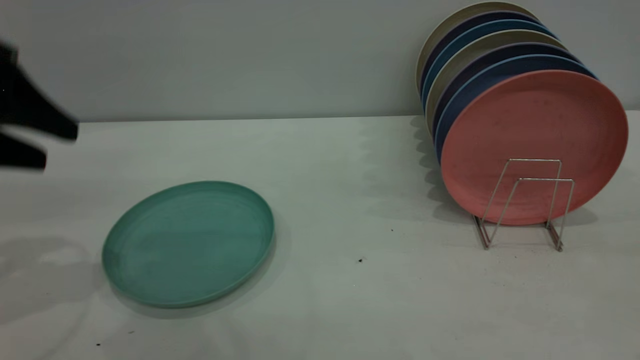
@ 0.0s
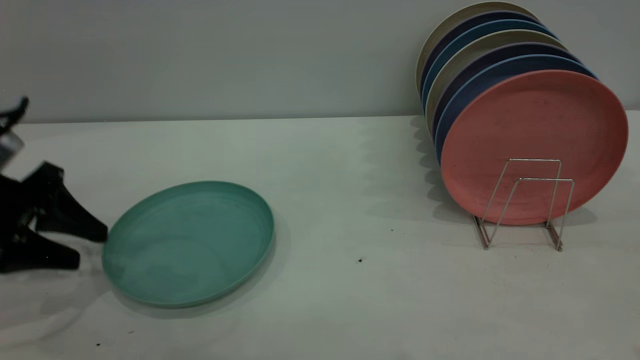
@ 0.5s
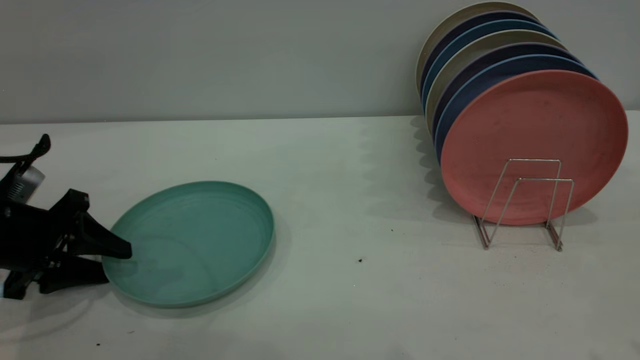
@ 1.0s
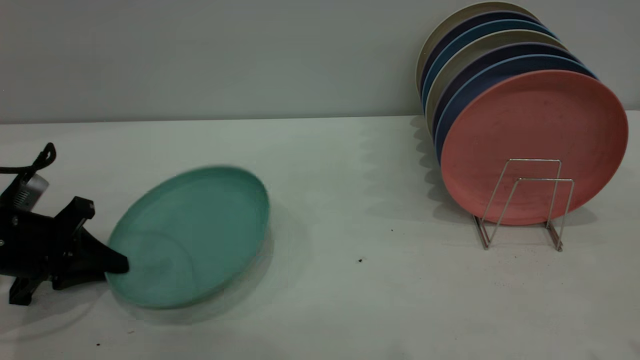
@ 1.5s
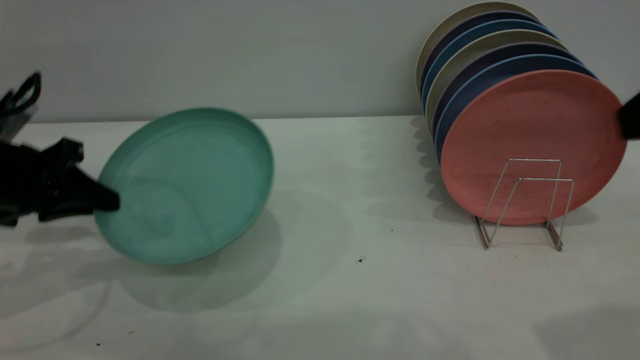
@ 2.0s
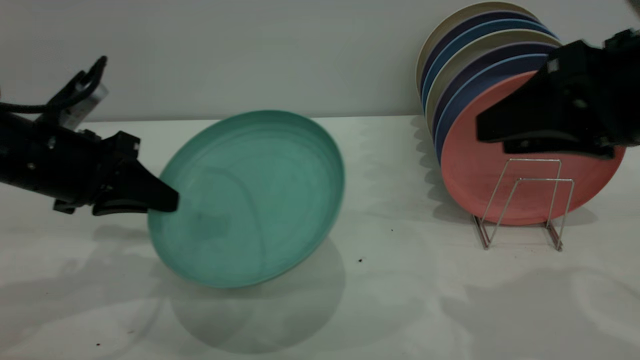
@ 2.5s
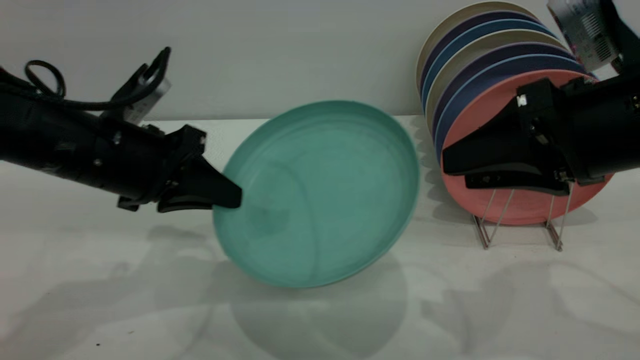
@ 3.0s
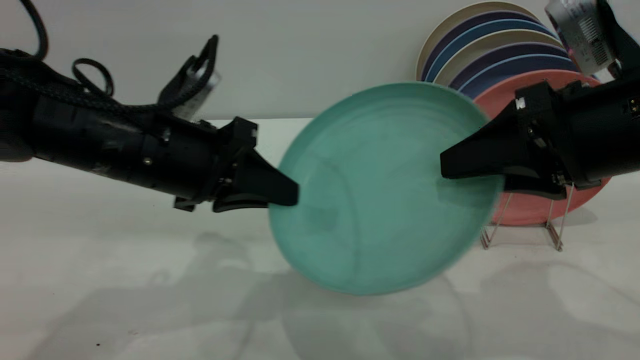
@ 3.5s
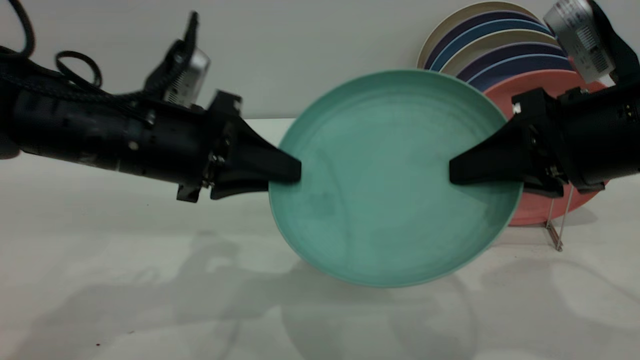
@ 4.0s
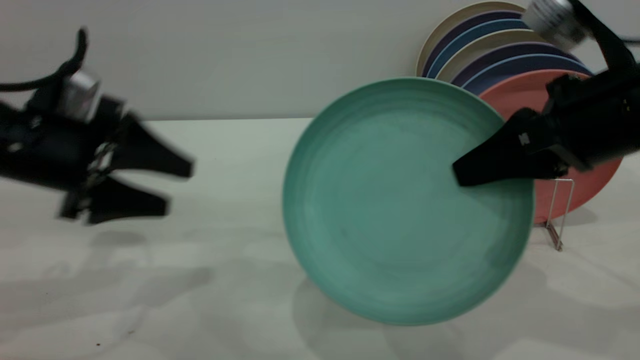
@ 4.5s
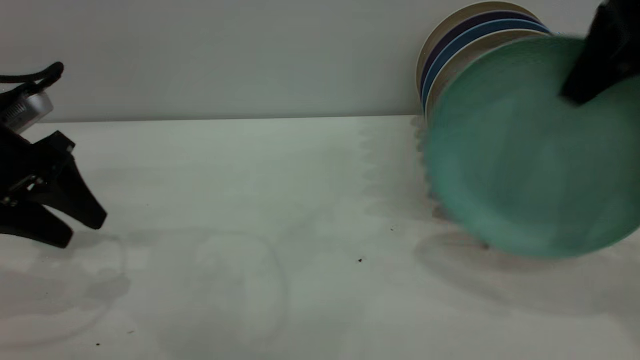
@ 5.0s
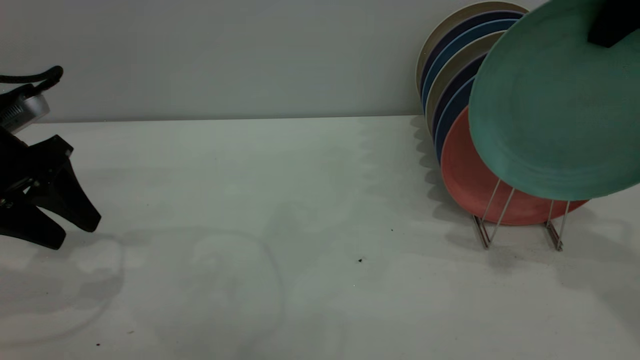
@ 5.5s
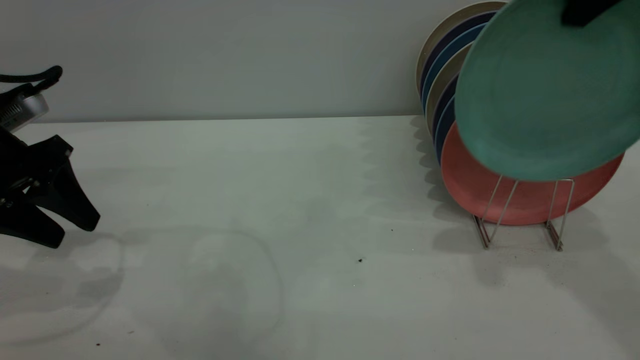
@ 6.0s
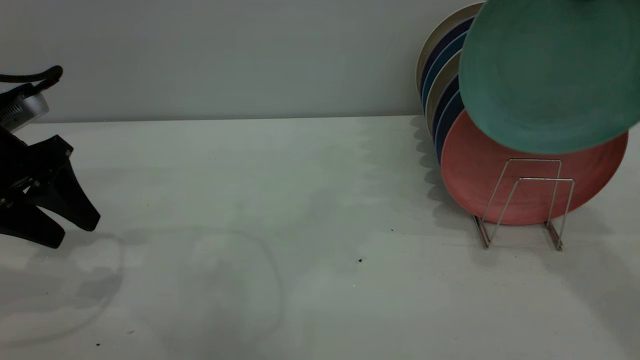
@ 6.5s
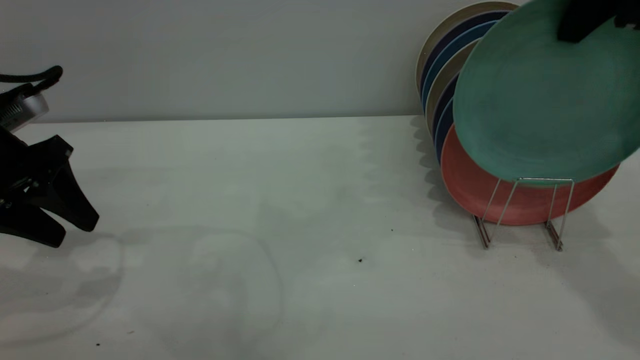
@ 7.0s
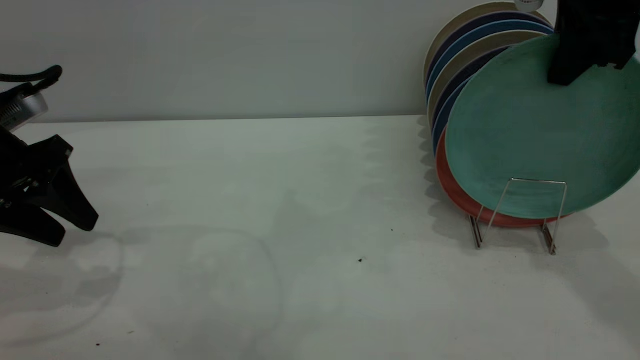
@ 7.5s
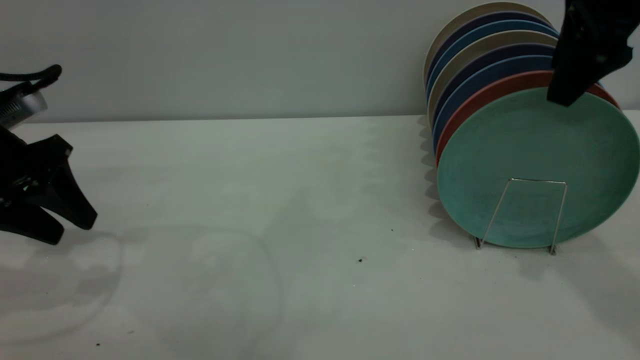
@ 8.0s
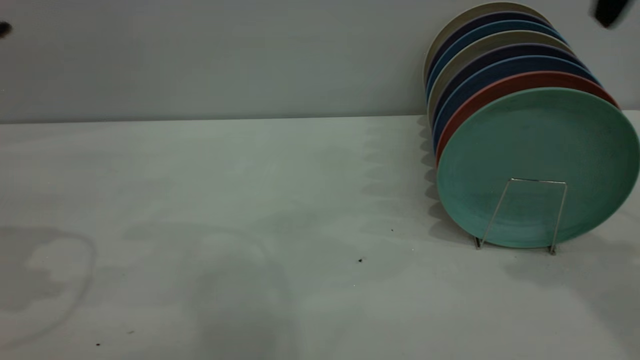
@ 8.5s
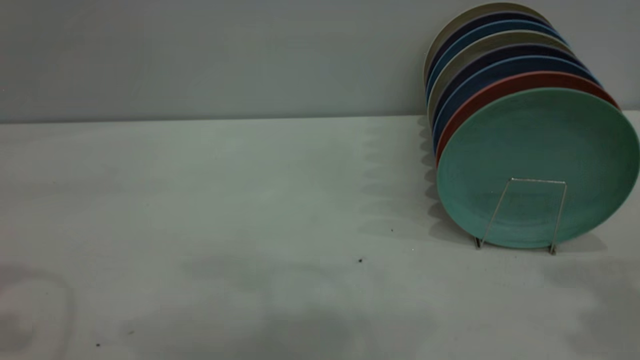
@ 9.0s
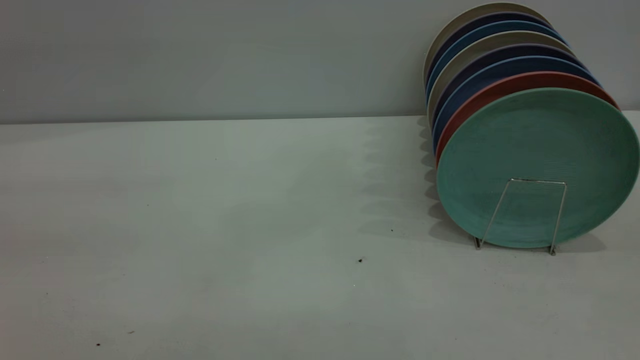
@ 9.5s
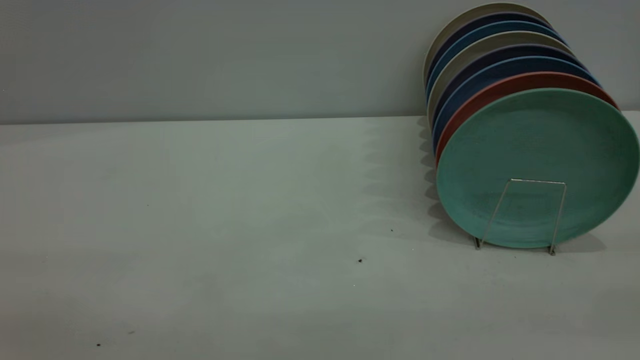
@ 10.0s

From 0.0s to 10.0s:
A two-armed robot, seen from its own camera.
Task of the whole recording: the left gripper grasp the green plate, the left gripper pass the green plate to the right gripper, and the right gripper place the green plate on the plate rack.
Step, from 0.0s to 2.0s: Pick up the plate with the left gripper.
Step, from 2.5s to 4.0s: Pass the plate from the left gripper to the right gripper.
Step, from 4.5s to 8.0s: Place the plate on the shelf.
From 0.0s to 2.0s: The right gripper shifts some 10 cm forward and downward, while the left gripper heads downward, covering approximately 10 cm, and closes up.
From 2.0s to 4.0s: The left gripper is displaced to the right by roughly 15 cm. Meanwhile the right gripper goes roughly 10 cm downward and forward, and closes.
From 4.0s to 6.0s: The right gripper heads upward and forward, covering about 20 cm. Meanwhile the left gripper travels to the left by approximately 15 cm, and opens.
From 6.0s to 8.0s: The right gripper goes roughly 5 cm downward, and opens up.
From 8.0s to 10.0s: The left gripper is displaced backward and upward by approximately 40 cm; the right gripper heads backward, covering about 35 cm.
